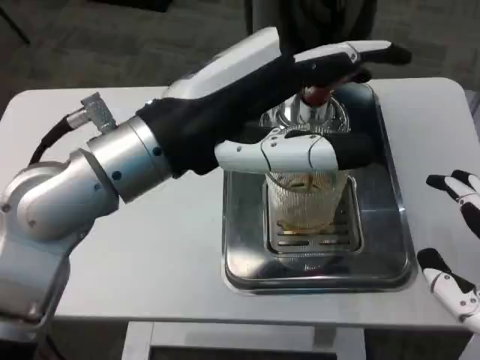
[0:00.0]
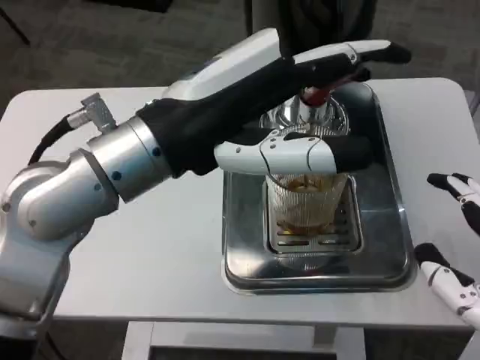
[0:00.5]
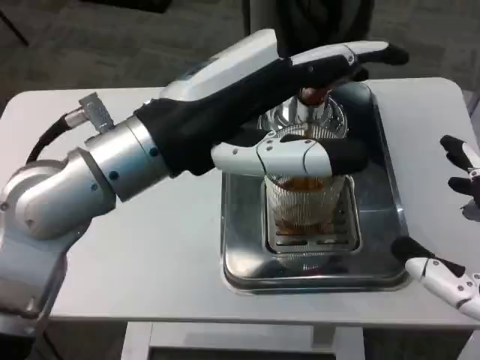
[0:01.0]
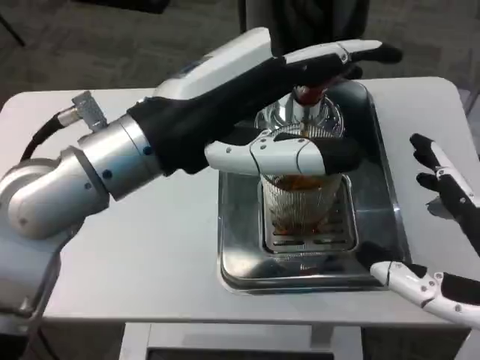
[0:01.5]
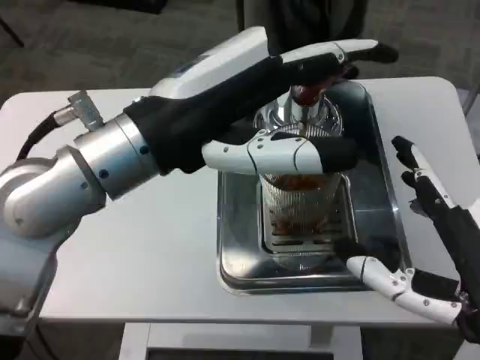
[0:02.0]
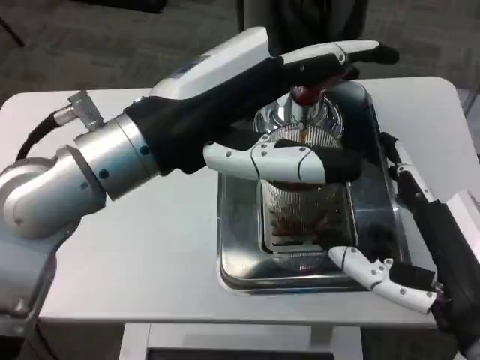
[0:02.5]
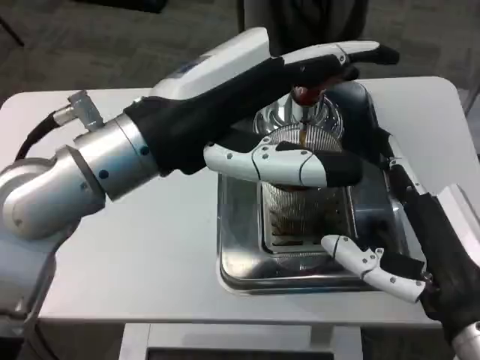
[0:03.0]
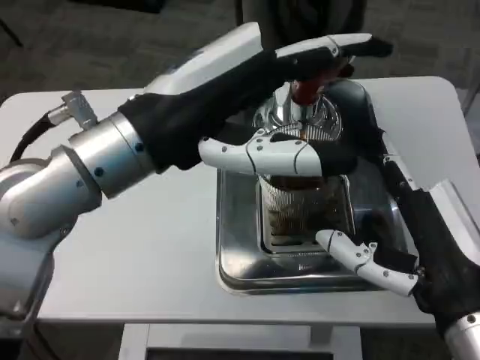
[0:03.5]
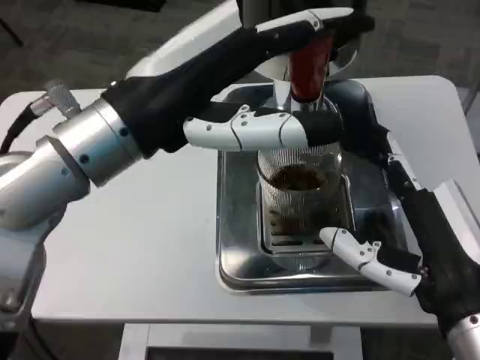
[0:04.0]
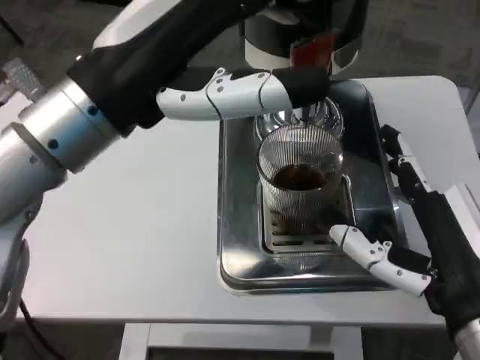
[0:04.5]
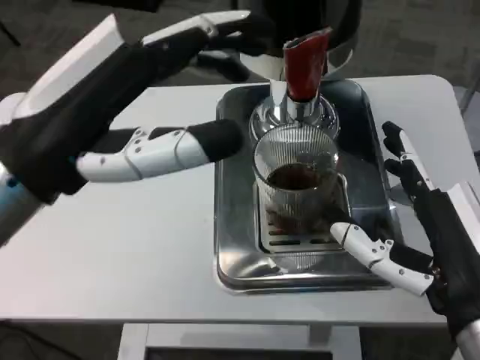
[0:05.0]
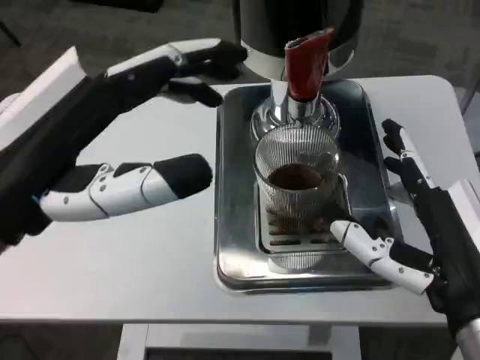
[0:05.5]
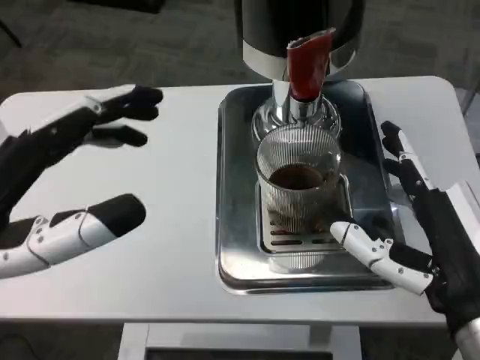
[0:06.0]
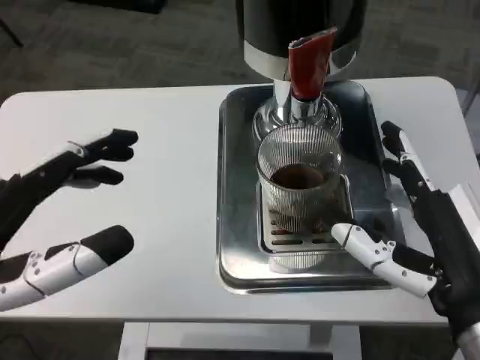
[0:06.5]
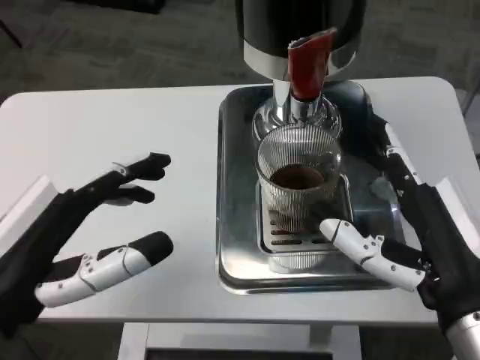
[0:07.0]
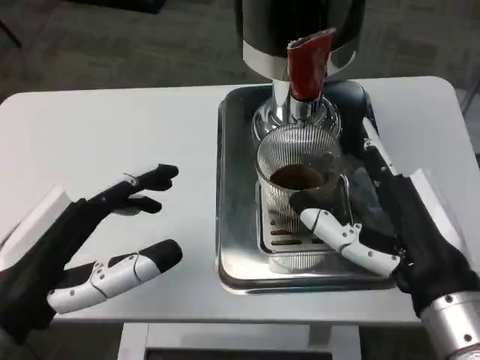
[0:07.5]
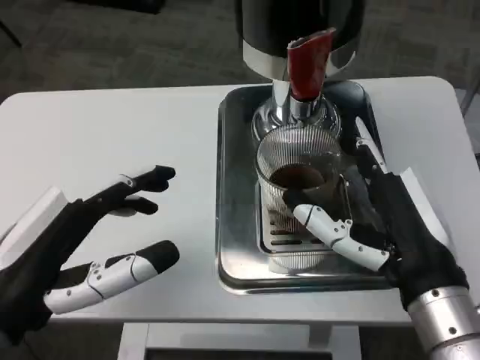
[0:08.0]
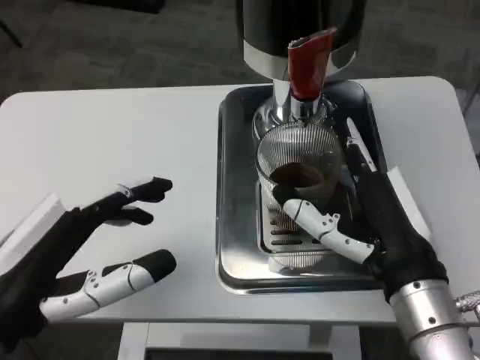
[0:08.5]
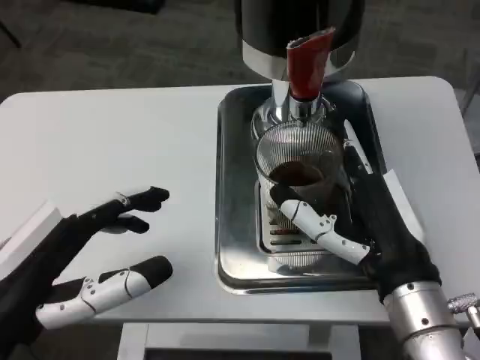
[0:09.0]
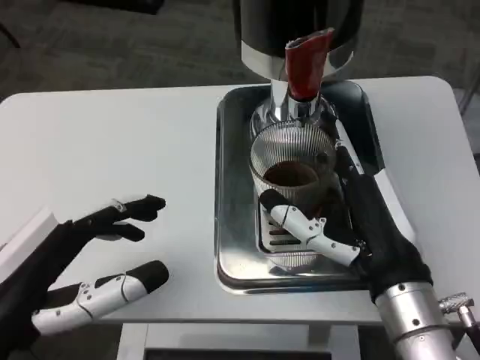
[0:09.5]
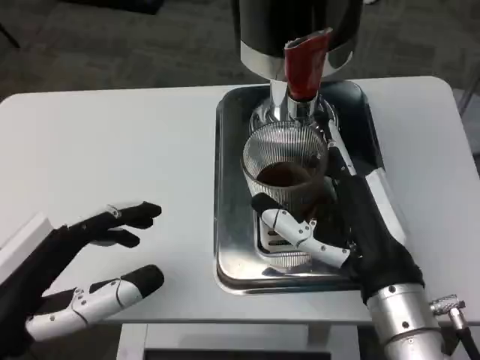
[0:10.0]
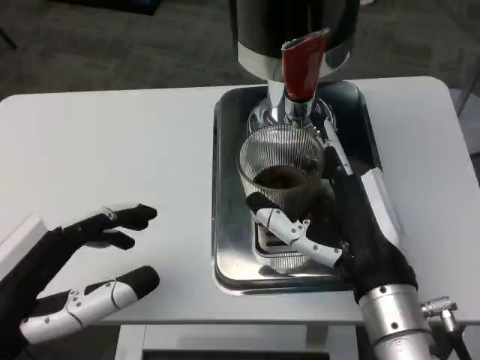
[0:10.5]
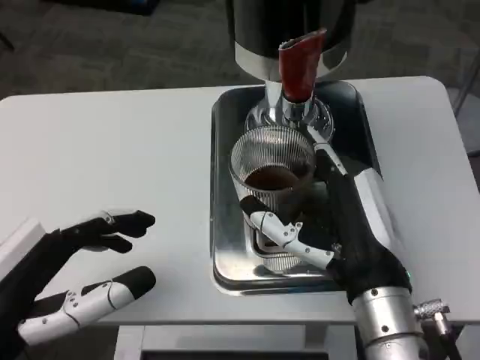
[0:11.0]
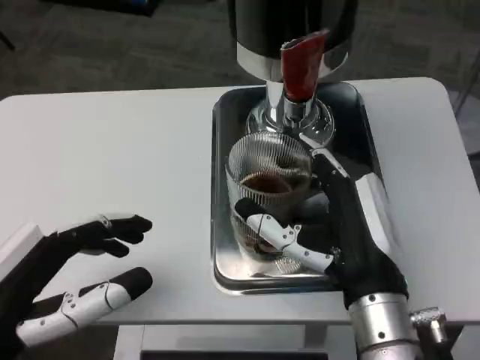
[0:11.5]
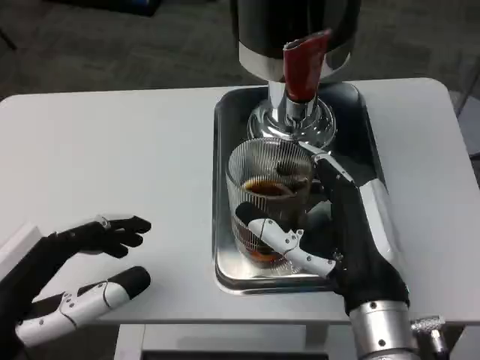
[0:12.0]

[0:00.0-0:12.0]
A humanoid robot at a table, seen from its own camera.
Task of the whole recording: Grasp the cup under the faucet to collect the drink, then remove the cup.
0:00.0 to 0:02.0: The right hand moves roughly 5 cm.
0:04.0 to 0:06.0: The left hand goes about 15 cm backward, to the left and downward.
0:06.0 to 0:08.0: The left hand travels downward by some 5 cm.

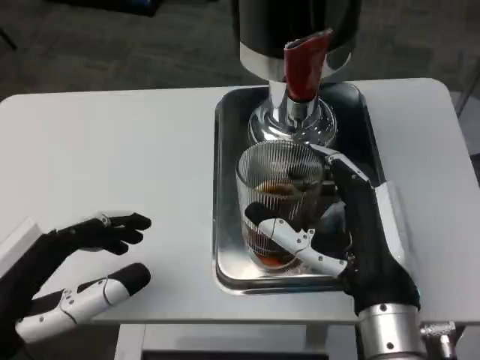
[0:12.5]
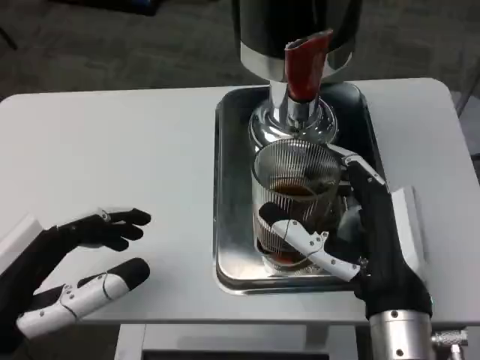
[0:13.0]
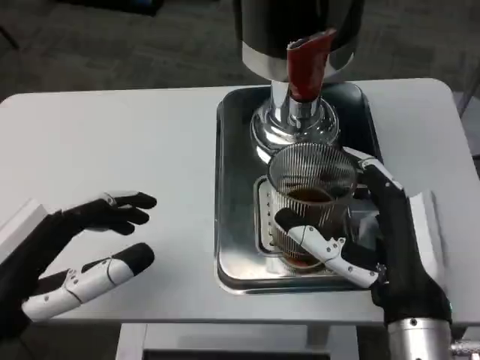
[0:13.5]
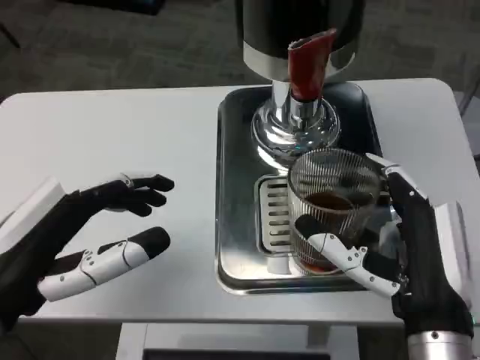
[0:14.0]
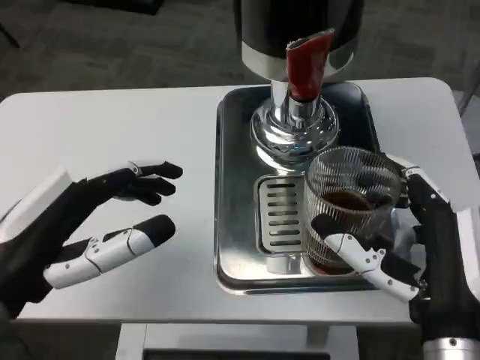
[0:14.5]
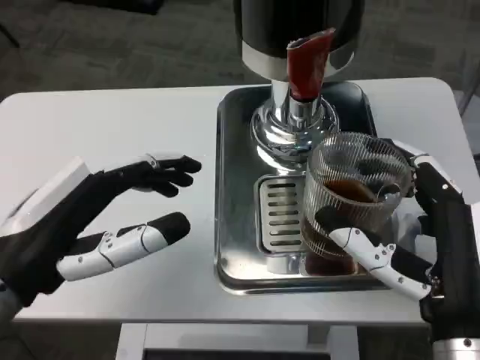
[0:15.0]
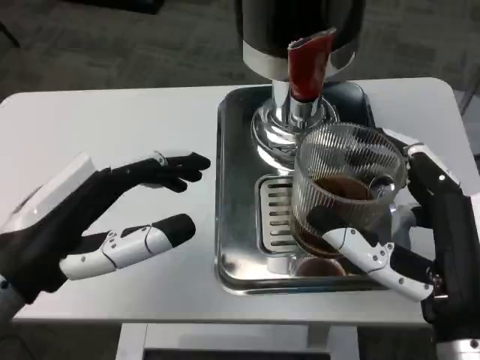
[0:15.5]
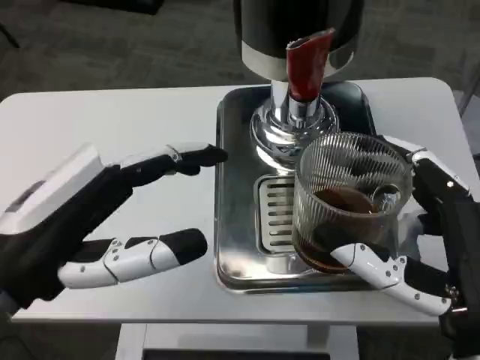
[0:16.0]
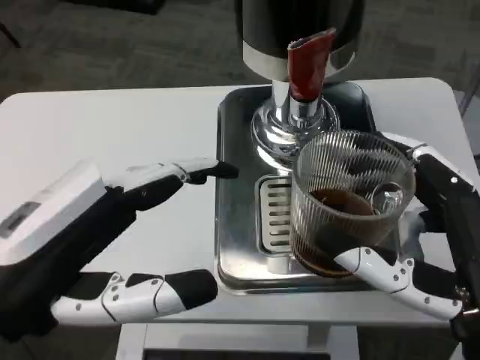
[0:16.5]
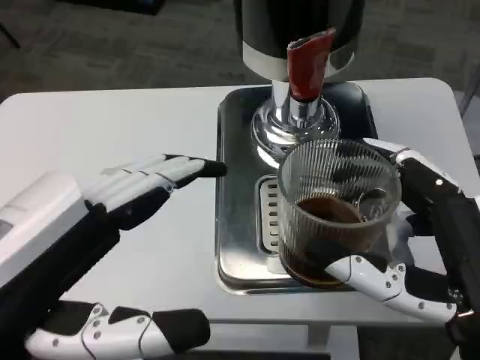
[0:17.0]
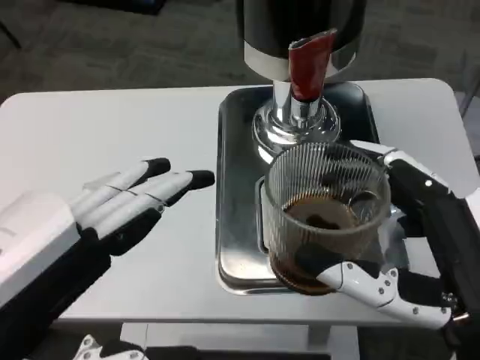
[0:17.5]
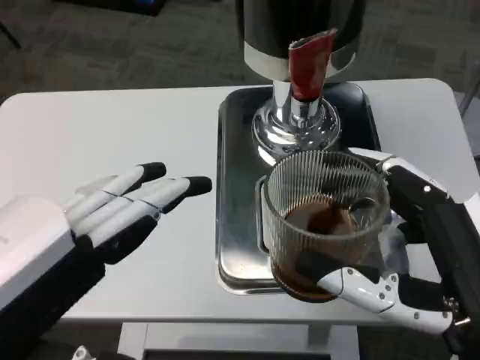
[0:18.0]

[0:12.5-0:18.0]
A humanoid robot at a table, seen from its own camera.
Task of the whole recording: Grasp the cup under the faucet to collect the drink, then remove the cup.
0:14.5 to 0:16.0: The right hand moves approximately 5 cm.
0:16.0 to 0:18.0: The left hand goes approximately 10 cm backward.

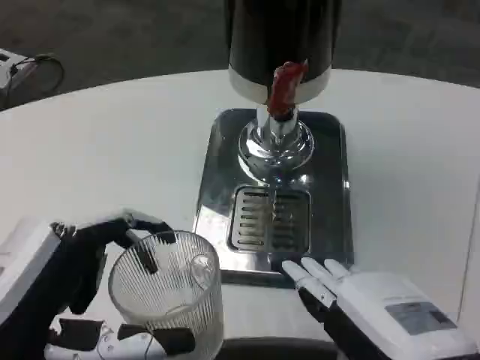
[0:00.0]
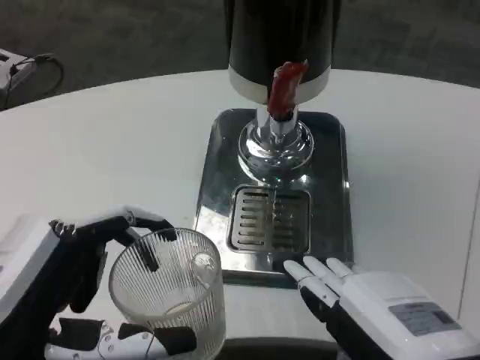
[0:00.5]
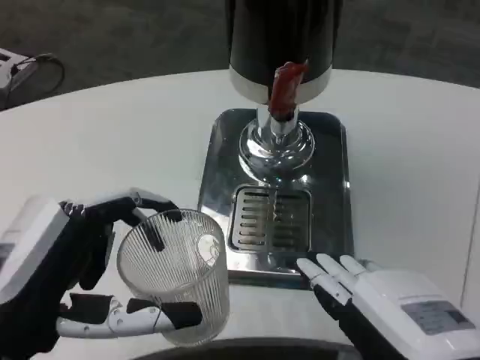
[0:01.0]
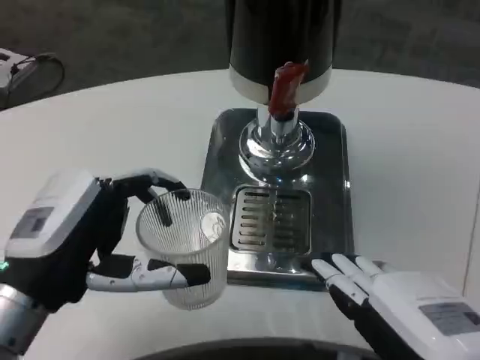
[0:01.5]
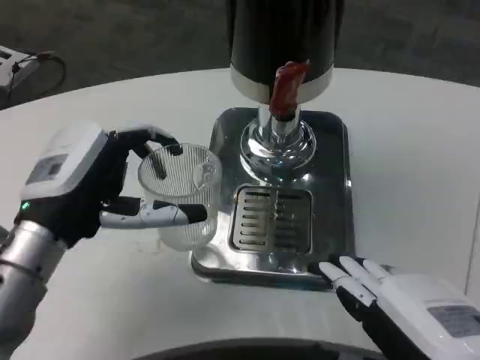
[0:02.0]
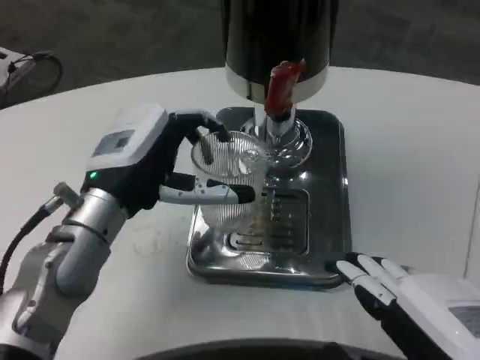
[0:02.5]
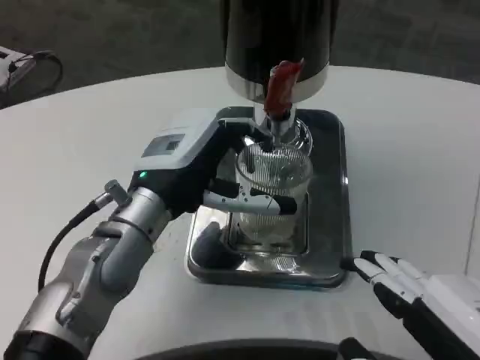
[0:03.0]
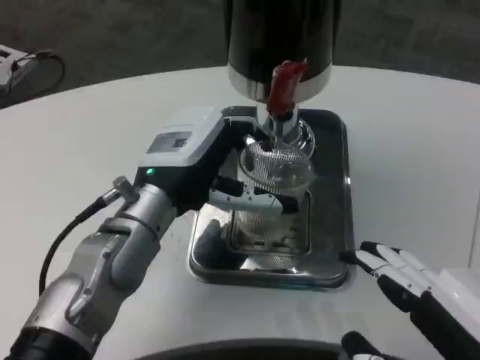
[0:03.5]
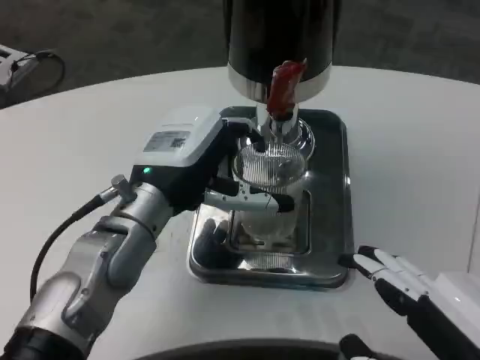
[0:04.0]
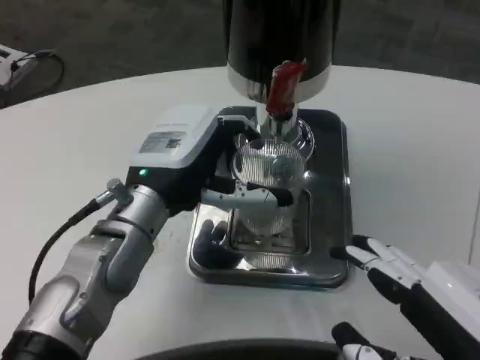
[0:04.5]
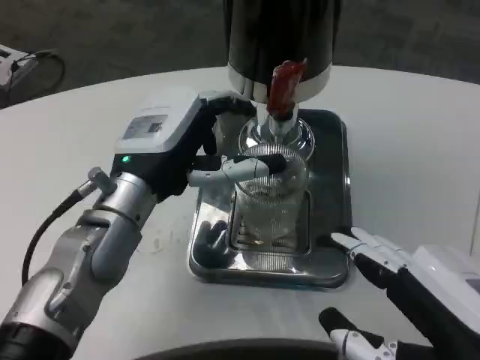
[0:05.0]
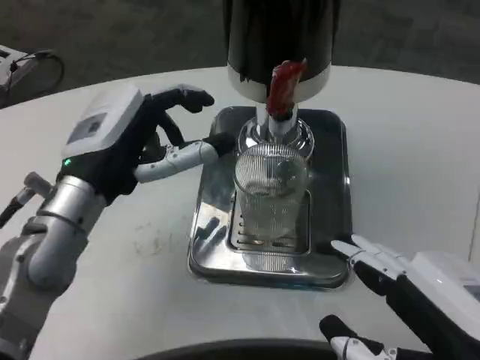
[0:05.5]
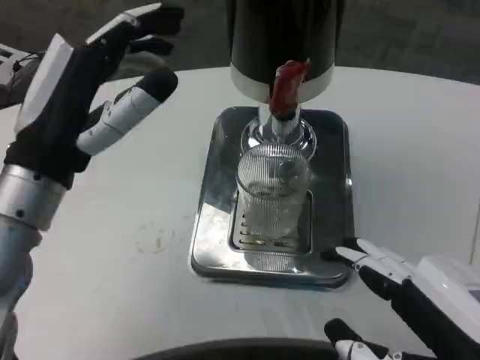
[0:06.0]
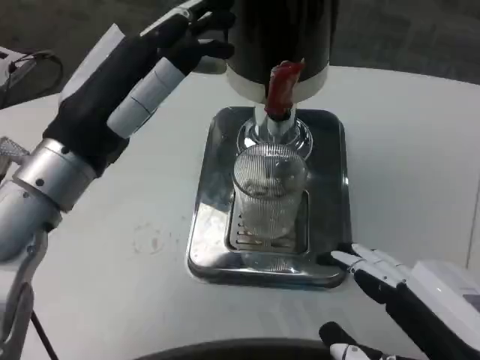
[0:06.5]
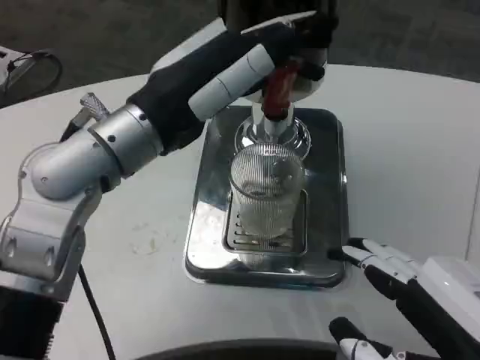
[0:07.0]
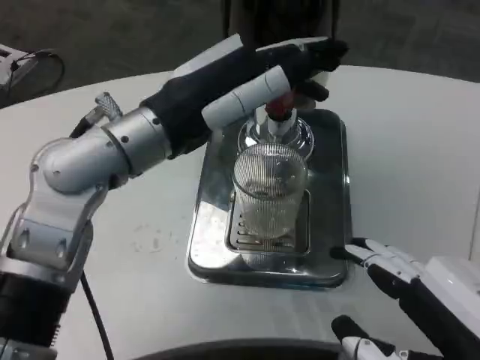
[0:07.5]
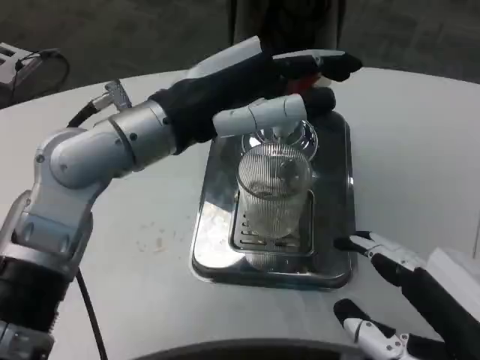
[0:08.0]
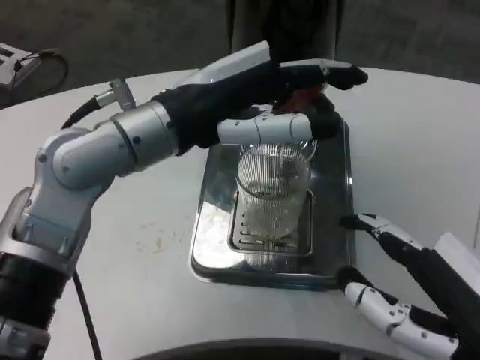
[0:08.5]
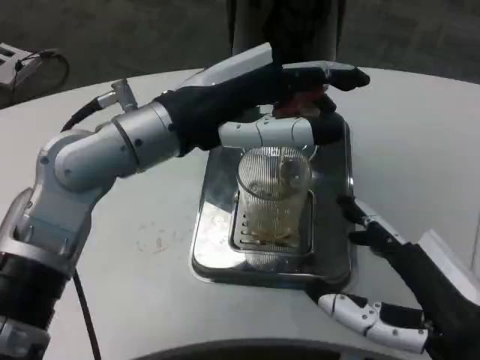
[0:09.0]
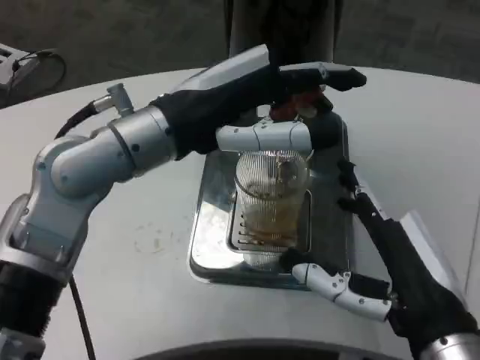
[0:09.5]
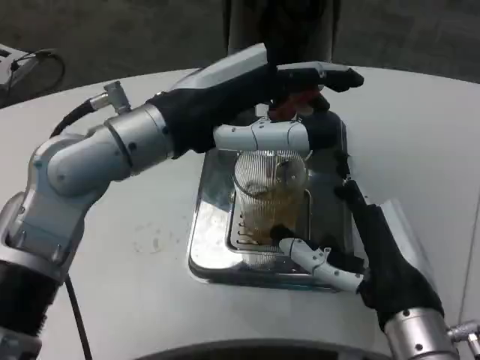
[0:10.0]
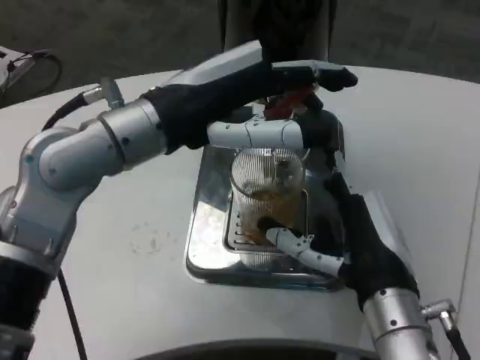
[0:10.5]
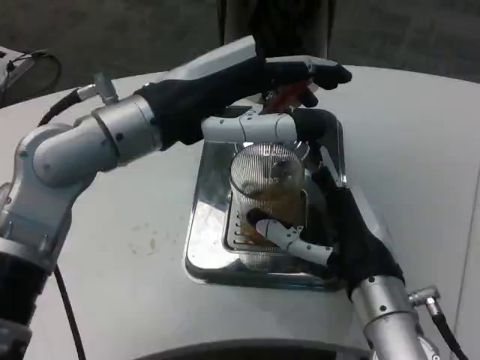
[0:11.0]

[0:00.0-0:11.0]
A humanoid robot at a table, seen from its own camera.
Task of the whole recording: Grasp the cup under the faucet to collect the drink, then remove the cup.
0:00.0 to 0:02.0: The left hand goes some 15 cm forward.
0:02.0 to 0:03.5: The left hand moves to the right, some 10 cm.
0:03.5 to 0:05.5: The left hand heads to the left, covering about 5 cm.
0:05.5 to 0:07.5: The left hand goes about 10 cm upward.
0:07.5 to 0:09.0: The right hand changes place by approximately 5 cm.
0:09.0 to 0:11.0: The right hand travels forward and to the left by approximately 10 cm.
